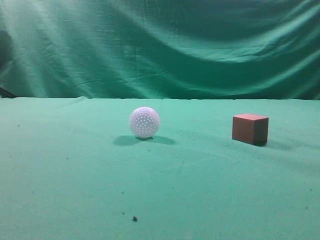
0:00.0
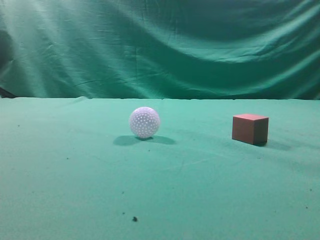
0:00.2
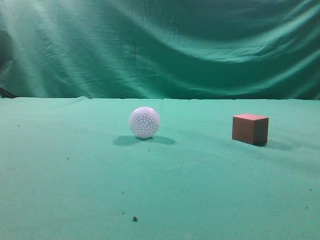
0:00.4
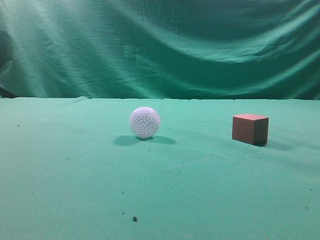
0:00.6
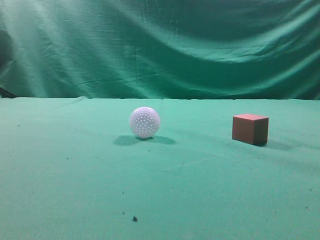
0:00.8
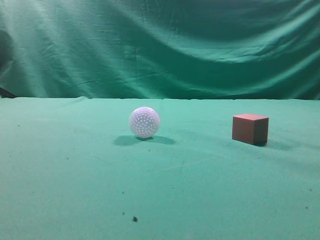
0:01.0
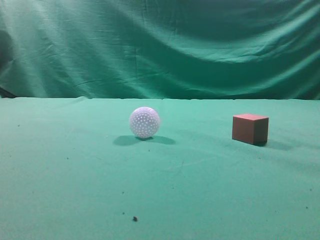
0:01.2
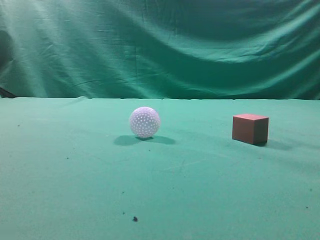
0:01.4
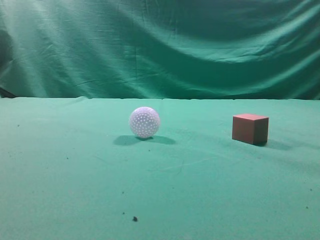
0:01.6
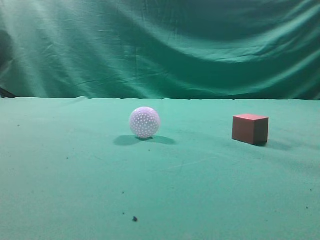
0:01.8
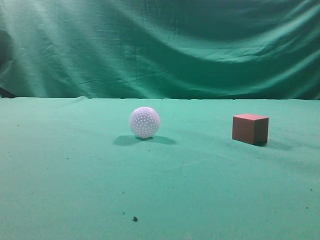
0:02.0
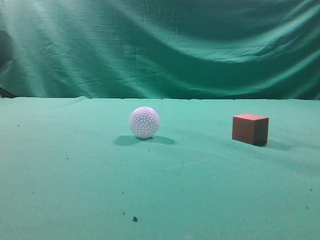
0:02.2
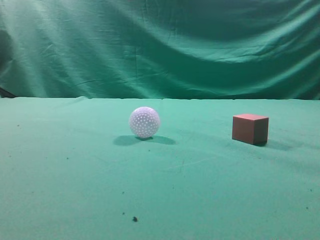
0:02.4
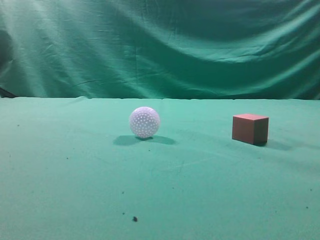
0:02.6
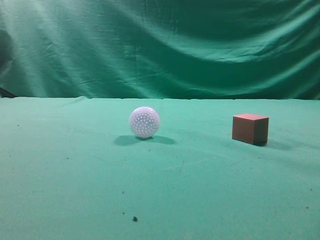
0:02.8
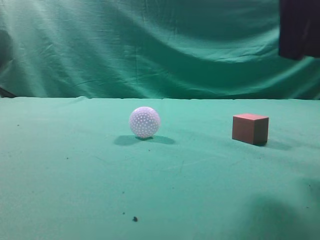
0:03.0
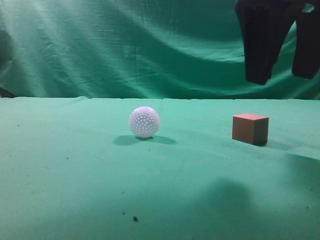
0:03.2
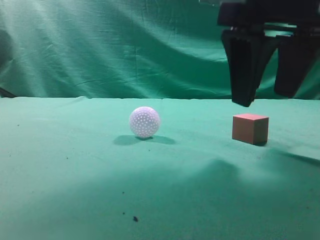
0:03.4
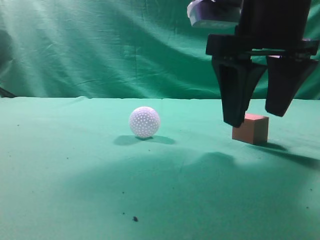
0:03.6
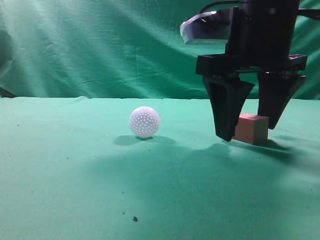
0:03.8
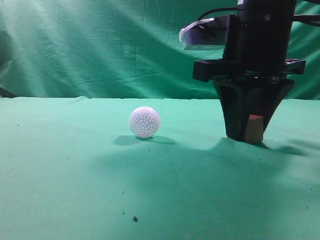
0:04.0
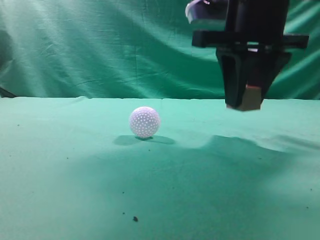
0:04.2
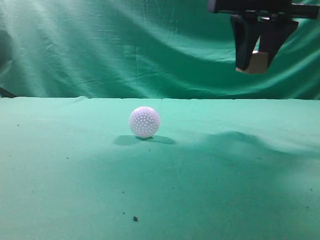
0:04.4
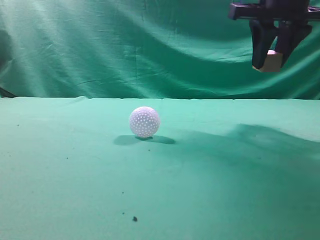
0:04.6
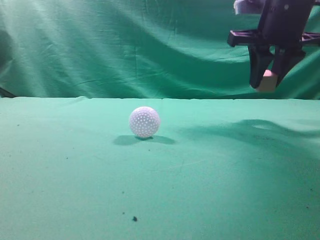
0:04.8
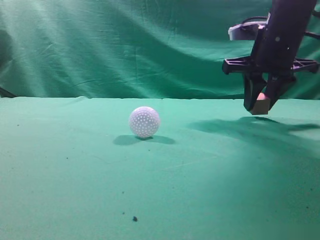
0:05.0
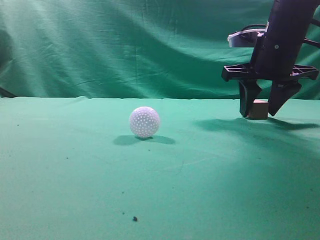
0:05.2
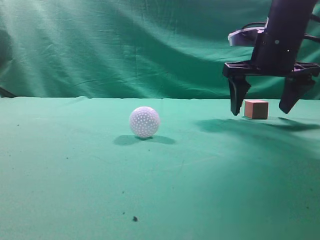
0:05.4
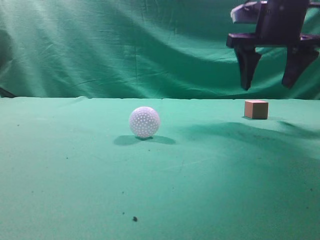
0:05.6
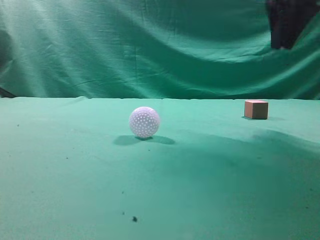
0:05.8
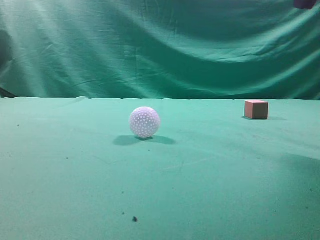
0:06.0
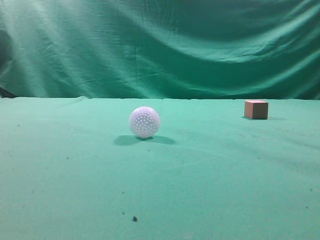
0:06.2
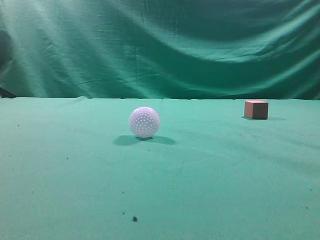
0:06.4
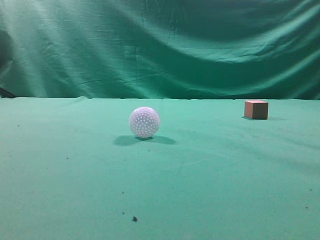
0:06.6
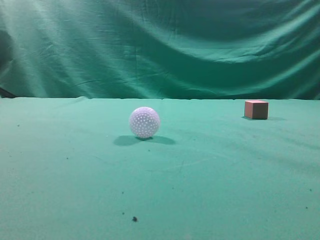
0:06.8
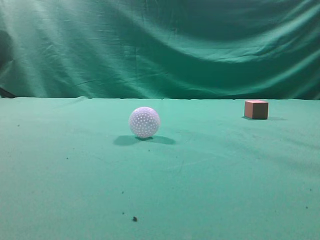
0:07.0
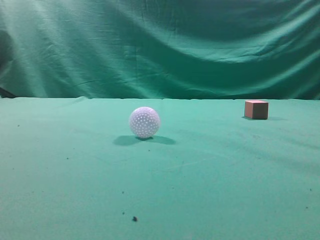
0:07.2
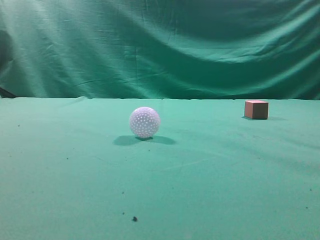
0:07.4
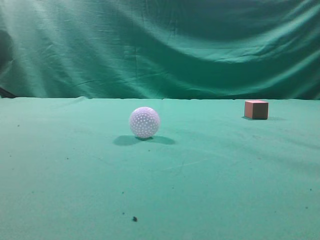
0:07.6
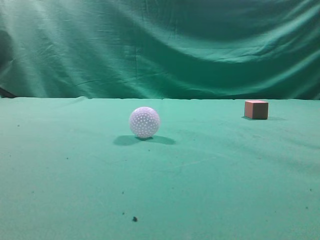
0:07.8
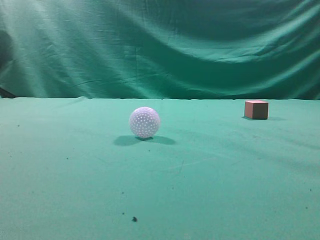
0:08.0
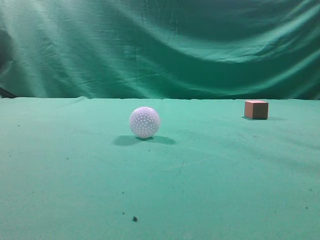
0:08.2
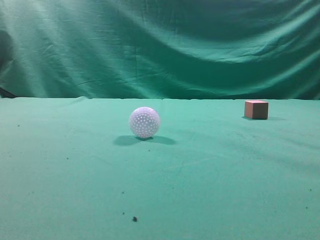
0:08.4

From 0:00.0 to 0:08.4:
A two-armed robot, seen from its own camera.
Task of the whole recording: pick up the cube block and place it in another position on the table.
Step, from 0:00.0 to 0:04.0: Pick up the small cube.
Step, from 0:04.2 to 0:05.4: Place the small cube on the ahead of the table.
From 0:02.8 to 0:04.2: The right gripper is displaced forward by approximately 10 cm, and opens, then closes once more.
From 0:04.2 to 0:05.6: The right gripper goes approximately 10 cm forward and to the right.
From 0:05.6 to 0:07.0: The right gripper moves backward, approximately 30 cm, and closes up.

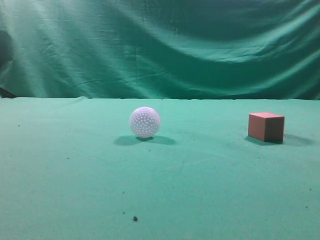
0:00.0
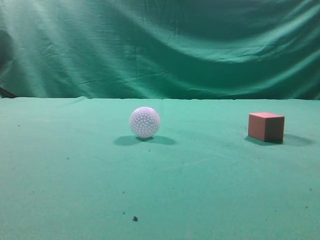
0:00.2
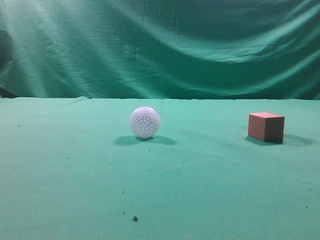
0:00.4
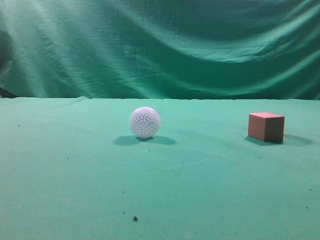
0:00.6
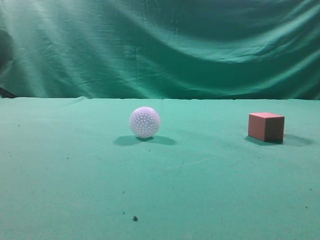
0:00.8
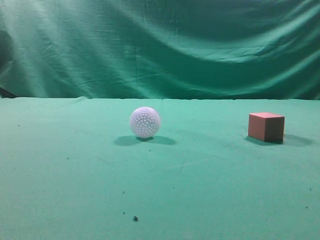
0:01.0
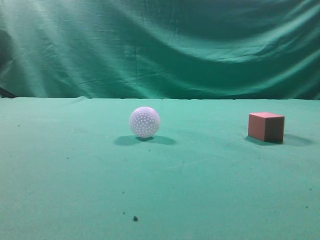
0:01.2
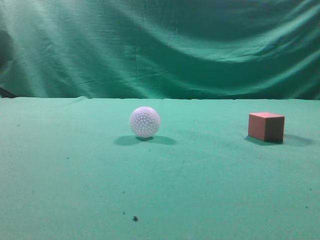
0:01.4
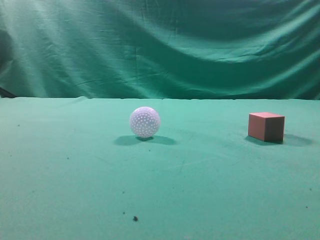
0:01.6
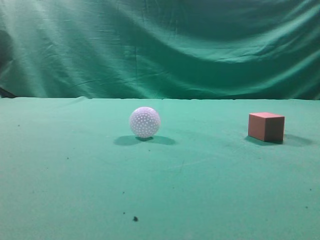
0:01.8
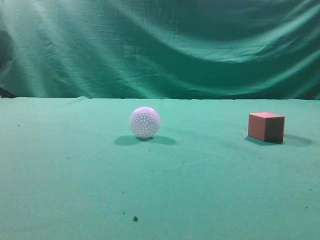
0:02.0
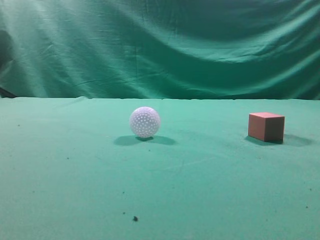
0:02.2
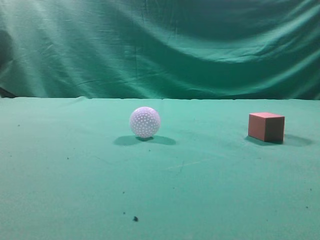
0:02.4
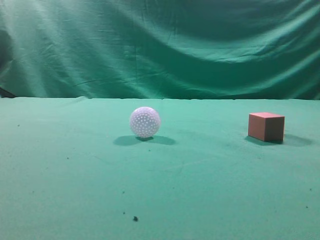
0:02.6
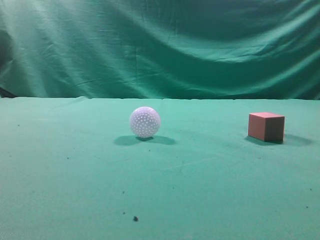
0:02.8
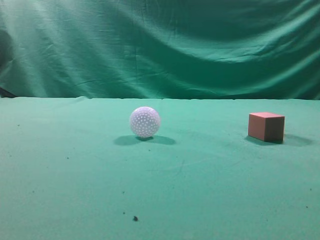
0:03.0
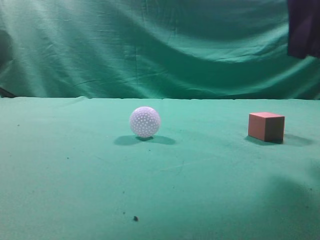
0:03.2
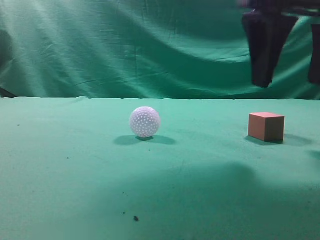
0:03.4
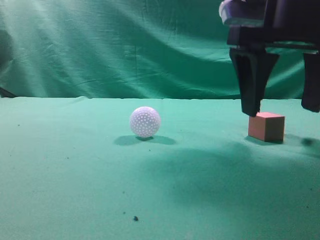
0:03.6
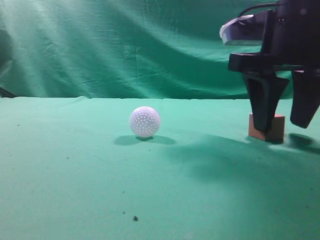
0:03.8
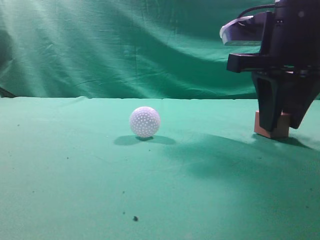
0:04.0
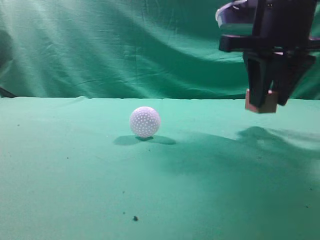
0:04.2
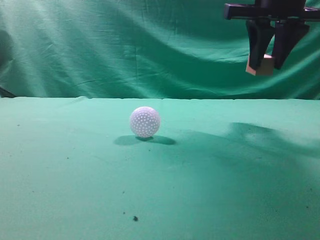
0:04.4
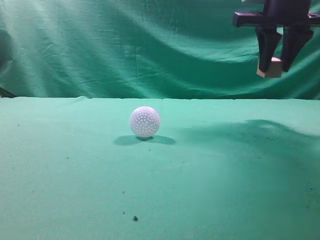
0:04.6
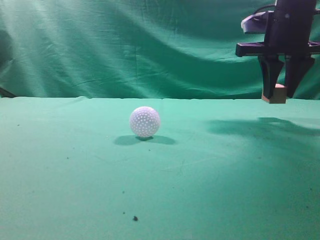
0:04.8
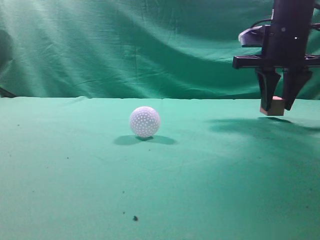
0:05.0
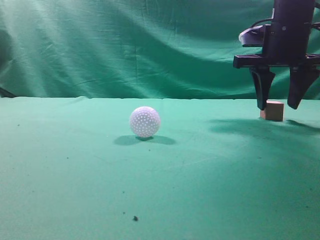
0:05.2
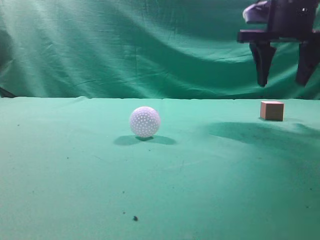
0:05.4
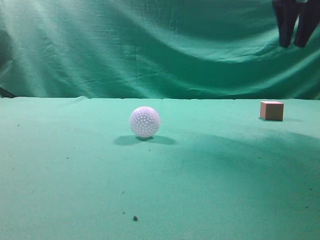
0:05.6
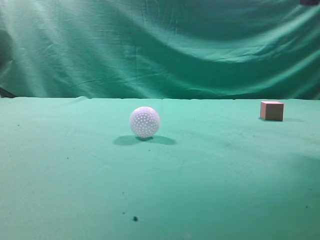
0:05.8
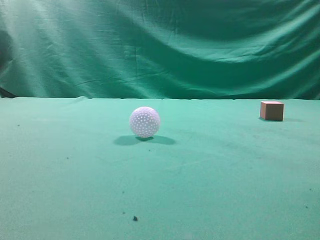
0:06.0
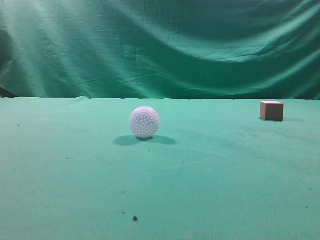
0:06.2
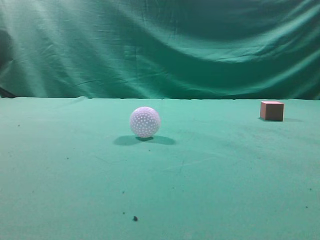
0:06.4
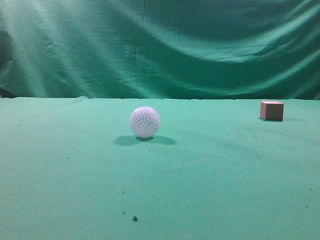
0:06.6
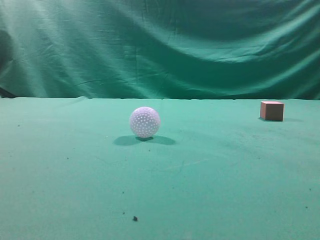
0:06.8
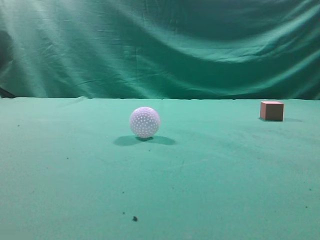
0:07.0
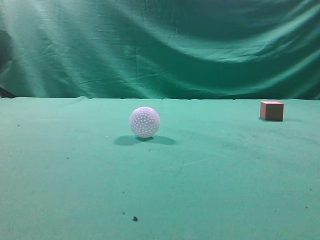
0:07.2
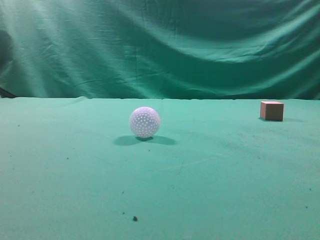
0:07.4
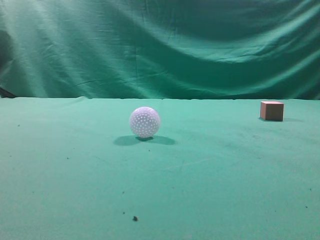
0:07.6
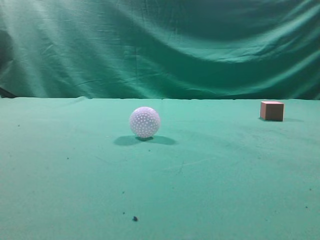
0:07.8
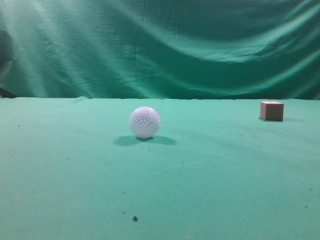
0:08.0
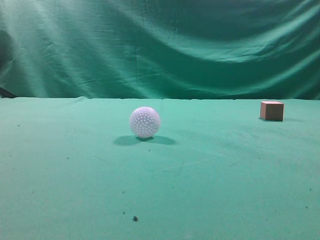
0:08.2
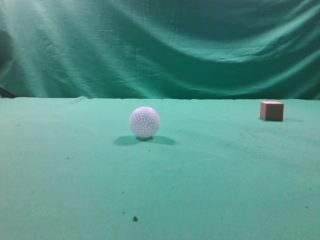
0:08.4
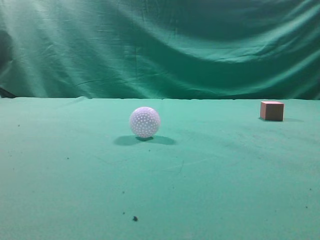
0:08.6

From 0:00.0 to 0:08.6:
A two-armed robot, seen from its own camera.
Task of the whole recording: pick up the cube block and place it in another position on the table.
Step, from 0:00.0 to 0:04.0: Pick up the small cube.
Step, from 0:04.4 to 0:05.2: Place the small cube on the ahead of the table.
From 0:02.8 to 0:04.4: The right gripper moves forward, some 20 cm, and opens, then closes once more.
From 0:04.4 to 0:05.8: The right gripper travels upward by about 10 cm, and opens, then closes again.
From 0:05.8 to 0:07.2: The right gripper moves backward, about 25 cm.

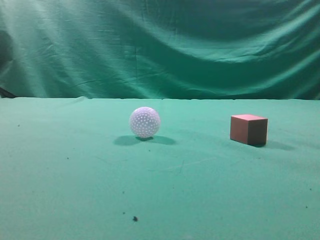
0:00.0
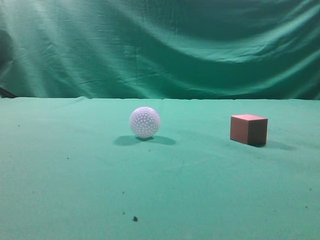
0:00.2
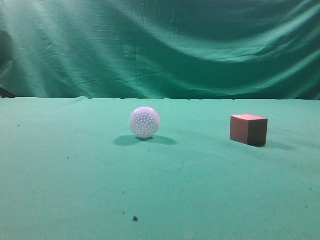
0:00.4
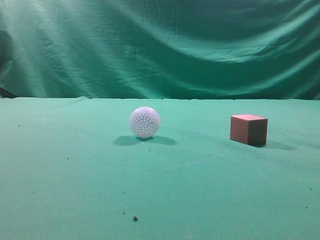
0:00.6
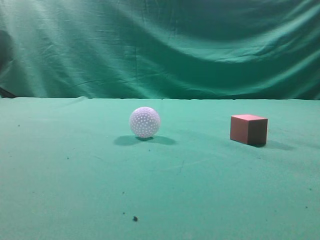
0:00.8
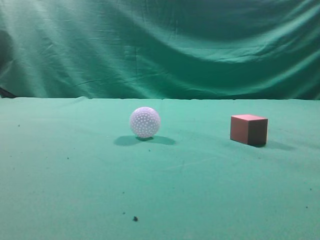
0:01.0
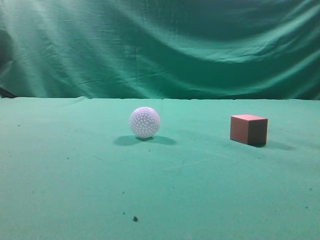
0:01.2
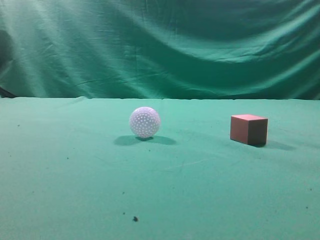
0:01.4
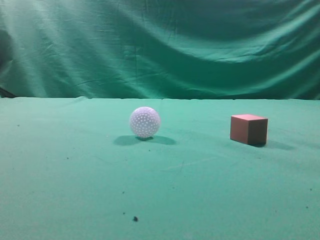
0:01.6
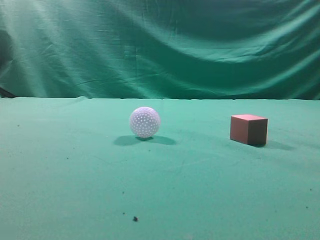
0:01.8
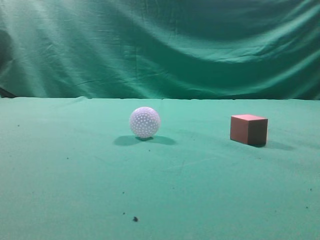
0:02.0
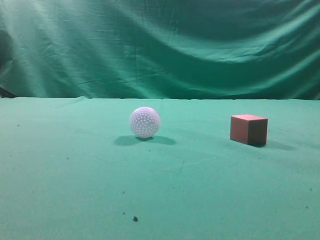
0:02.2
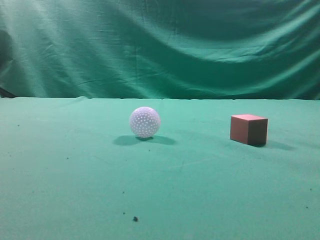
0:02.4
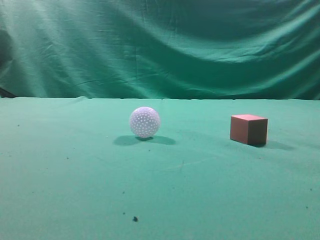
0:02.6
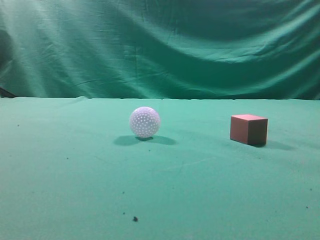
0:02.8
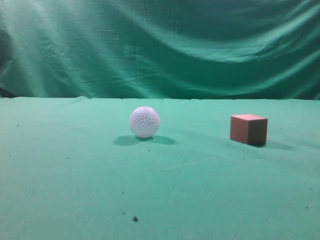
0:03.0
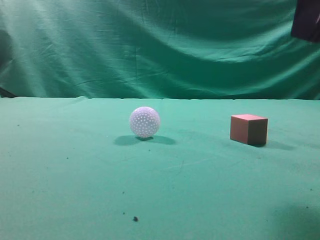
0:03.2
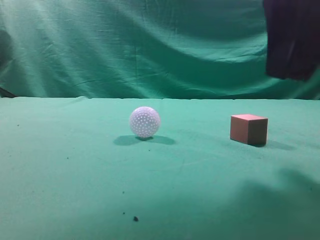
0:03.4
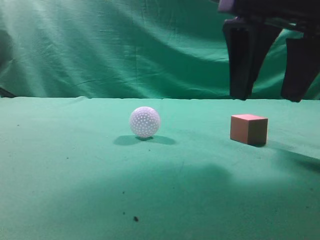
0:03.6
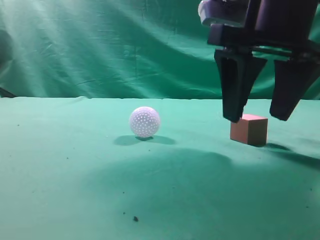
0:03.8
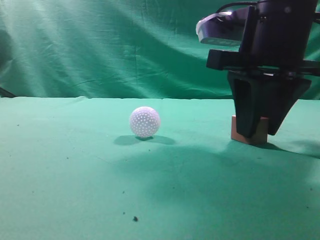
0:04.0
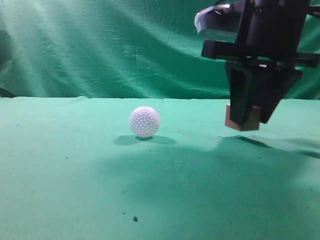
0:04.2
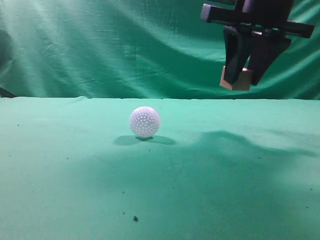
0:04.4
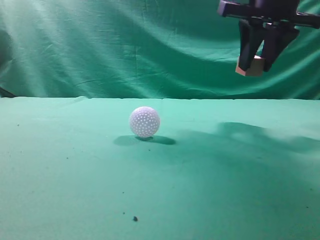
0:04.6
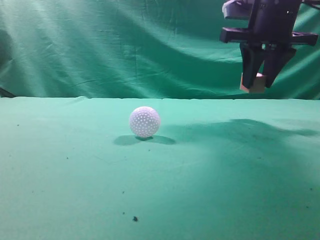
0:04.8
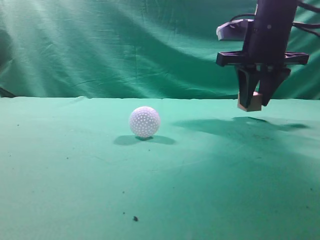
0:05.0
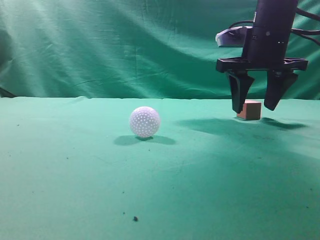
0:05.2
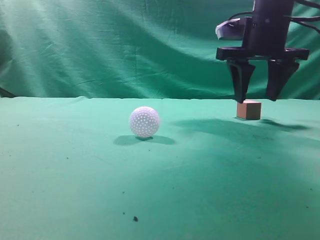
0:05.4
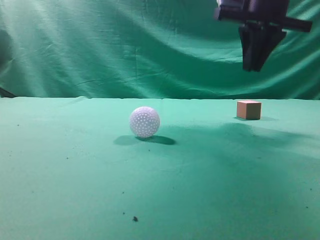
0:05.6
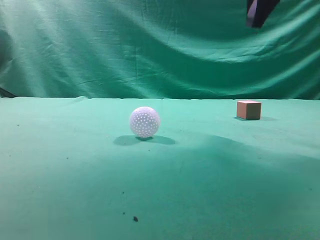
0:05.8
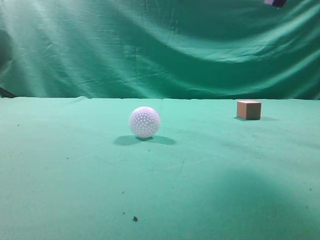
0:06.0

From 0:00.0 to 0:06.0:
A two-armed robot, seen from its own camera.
Task of the whole recording: pick up the cube block and place it in another position on the table.
Step, from 0:00.0 to 0:04.2: Pick up the small cube.
Step, from 0:04.4 to 0:05.4: Place the small cube on the ahead of the table.
From 0:03.0 to 0:04.4: The right gripper shifts approximately 15 cm forward, and opens up.
From 0:04.4 to 0:06.0: The right gripper is displaced upward and backward by some 10 cm, and closes.
